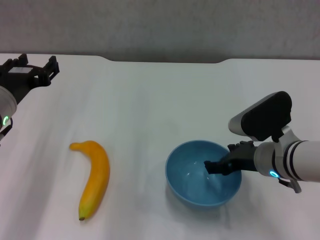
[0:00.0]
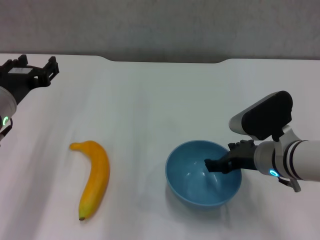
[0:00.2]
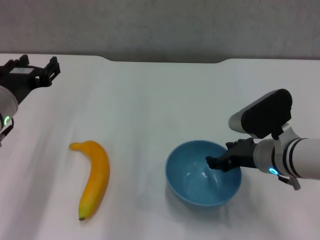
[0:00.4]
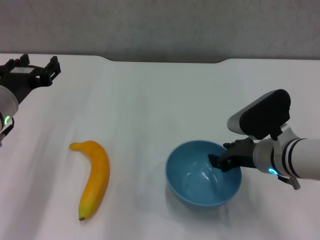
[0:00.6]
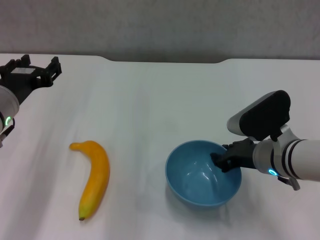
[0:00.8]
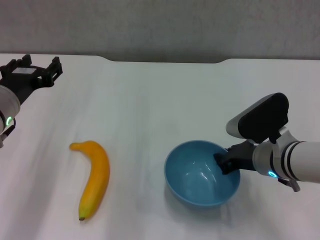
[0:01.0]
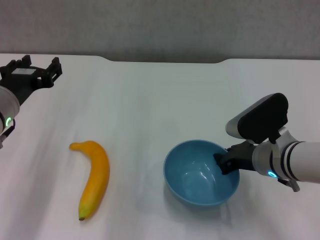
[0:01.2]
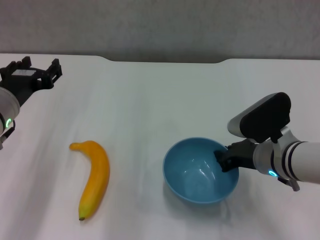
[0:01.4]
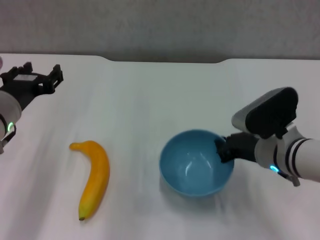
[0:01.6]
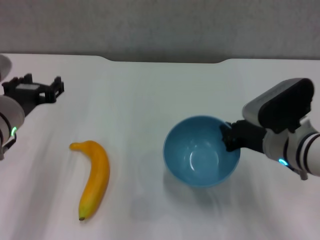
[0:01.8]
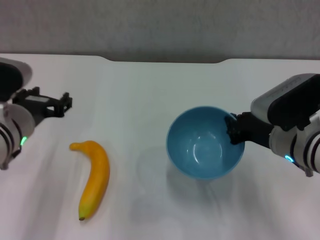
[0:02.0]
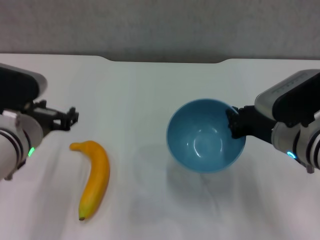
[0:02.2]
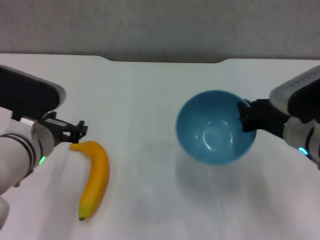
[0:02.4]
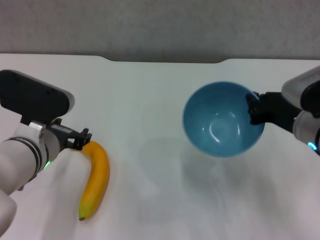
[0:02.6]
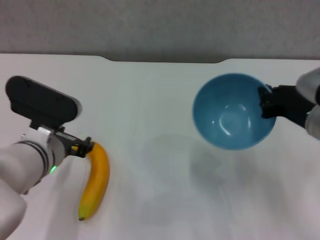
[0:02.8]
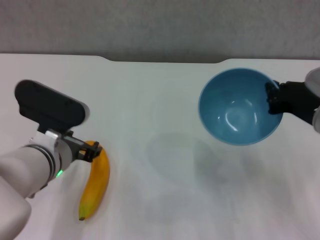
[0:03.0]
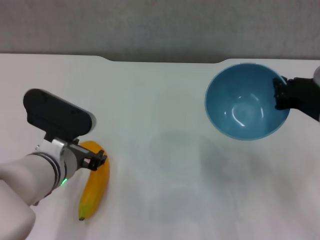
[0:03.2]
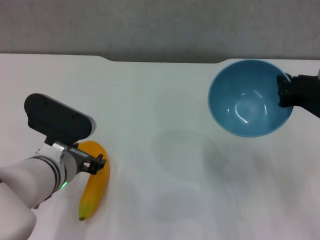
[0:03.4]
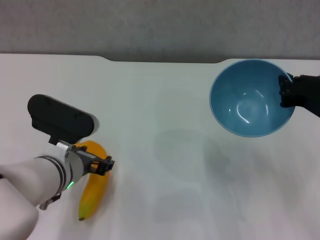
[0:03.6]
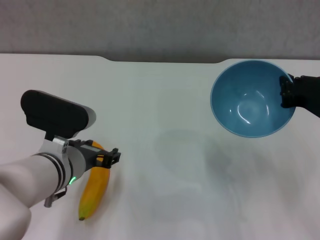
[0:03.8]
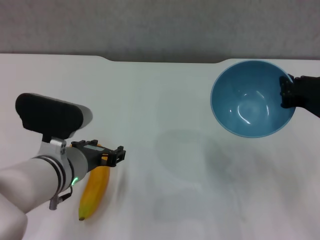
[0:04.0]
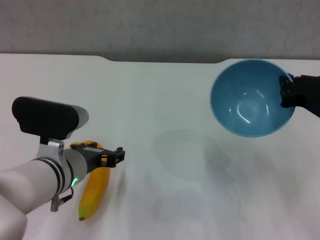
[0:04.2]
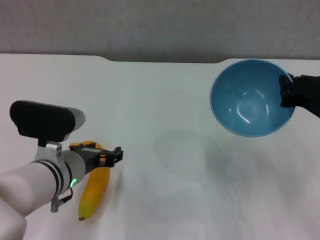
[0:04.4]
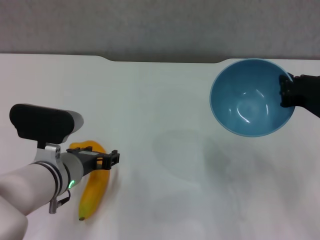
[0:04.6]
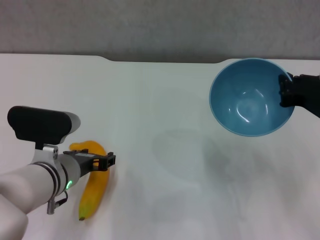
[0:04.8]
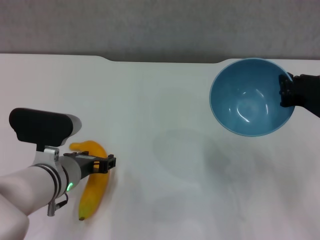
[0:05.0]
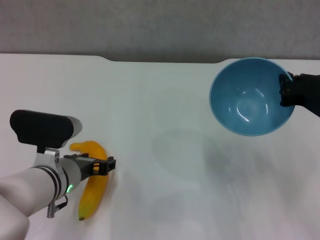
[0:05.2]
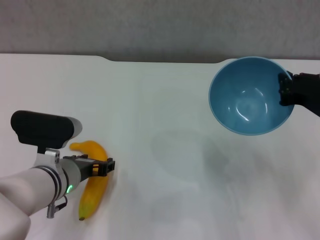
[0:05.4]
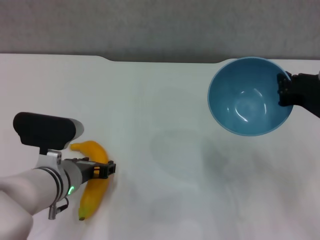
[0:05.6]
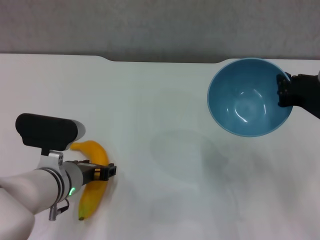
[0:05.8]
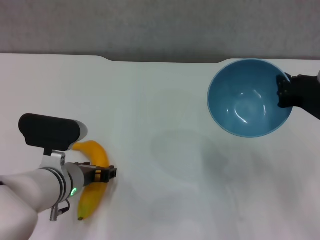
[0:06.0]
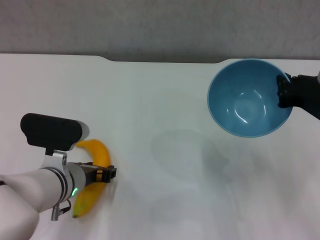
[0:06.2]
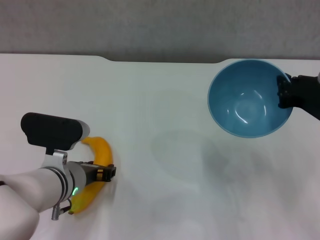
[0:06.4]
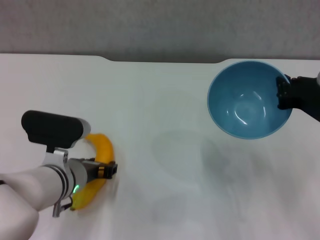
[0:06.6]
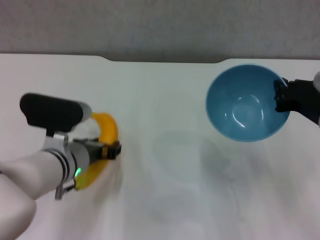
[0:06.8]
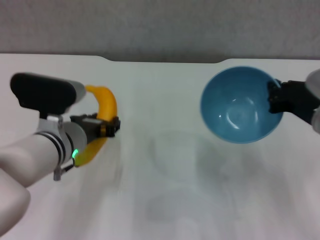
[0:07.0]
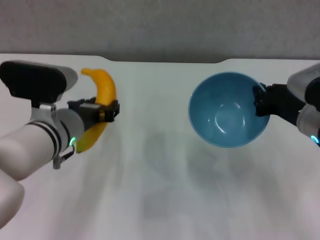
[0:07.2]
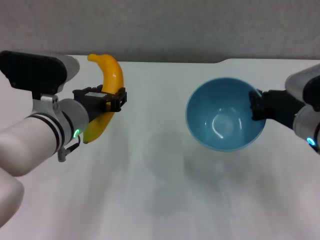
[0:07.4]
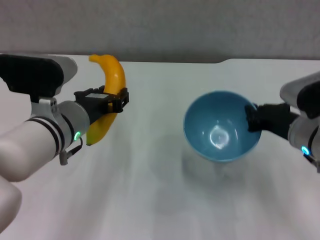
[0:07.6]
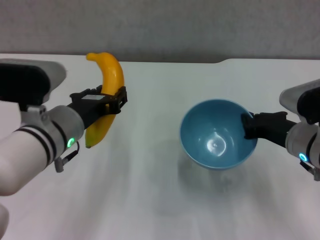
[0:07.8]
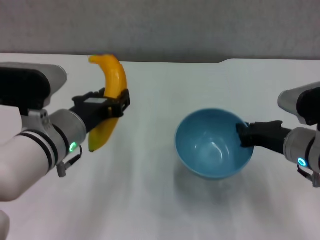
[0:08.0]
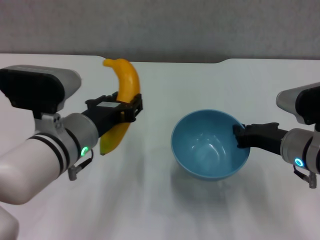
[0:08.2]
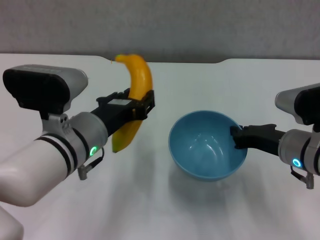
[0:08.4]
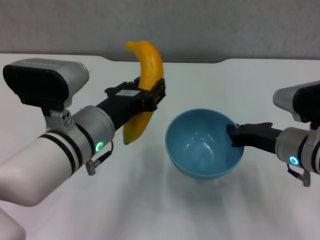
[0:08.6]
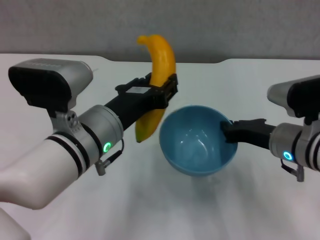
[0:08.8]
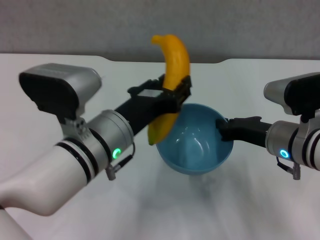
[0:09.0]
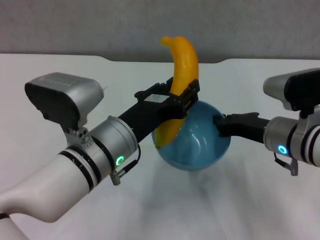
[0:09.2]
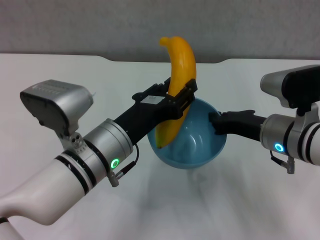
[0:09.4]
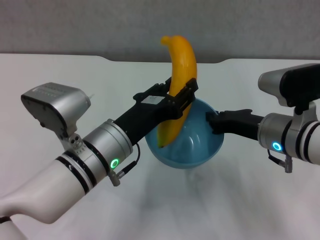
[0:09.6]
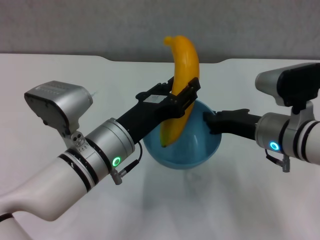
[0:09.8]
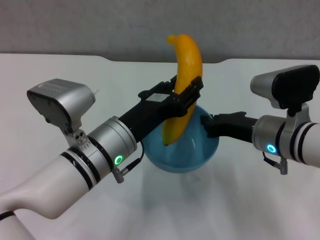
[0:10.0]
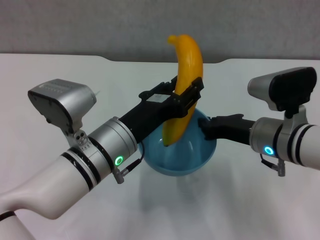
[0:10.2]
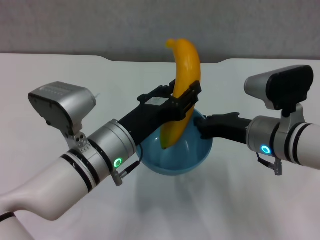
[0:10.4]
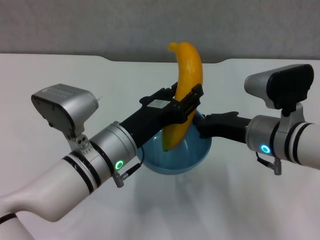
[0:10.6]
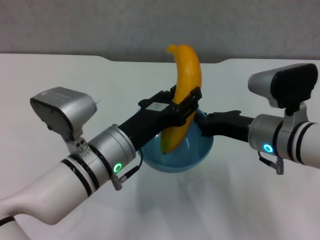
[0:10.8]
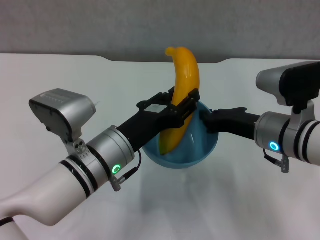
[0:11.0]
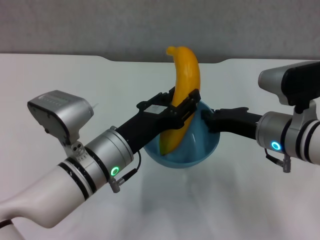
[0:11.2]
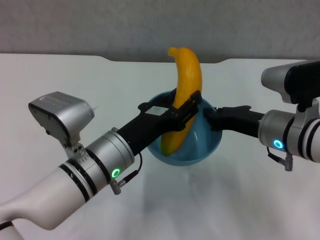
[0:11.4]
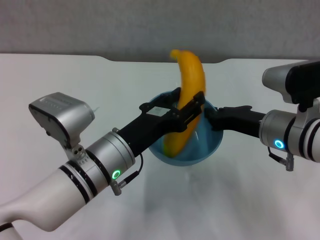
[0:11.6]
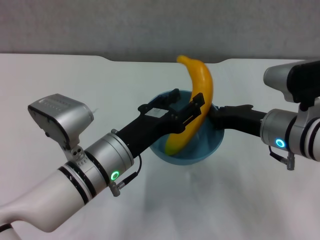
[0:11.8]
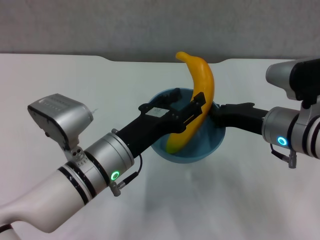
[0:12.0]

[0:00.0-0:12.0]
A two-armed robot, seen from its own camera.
Step, 0:01.4 to 0:02.0: Lift the blue bowl with right gripper.
Step, 0:02.2 to 0:06.2: Grasp the banana with left gripper.
0:00.0 to 0:01.6: The right gripper closes its fingers.
0:01.6 to 0:03.0: The left gripper goes about 5 cm to the right; the right gripper shifts approximately 10 cm upward and to the right.
0:03.0 to 0:06.0: The grippers stay close to where they were, moving slightly.
0:06.0 to 0:07.6: The left gripper moves upward, approximately 10 cm, and closes up, while the right gripper moves roughly 5 cm.
0:07.6 to 0:09.0: The left gripper travels to the right by approximately 5 cm.

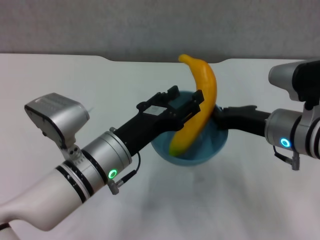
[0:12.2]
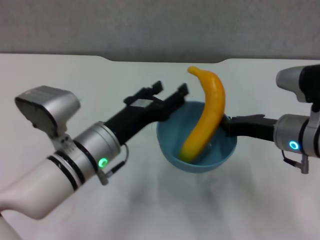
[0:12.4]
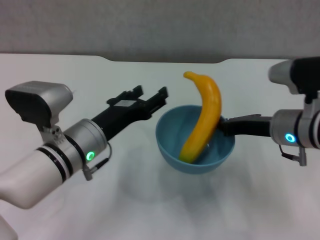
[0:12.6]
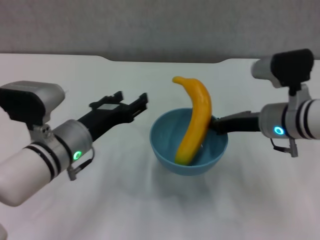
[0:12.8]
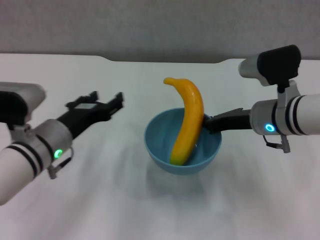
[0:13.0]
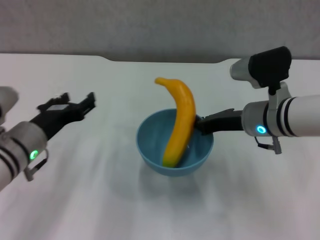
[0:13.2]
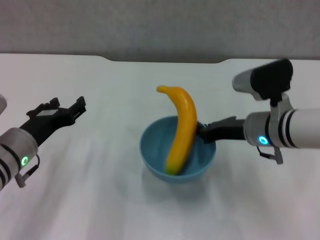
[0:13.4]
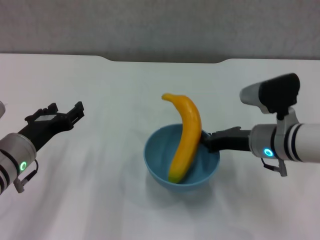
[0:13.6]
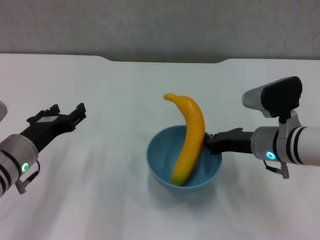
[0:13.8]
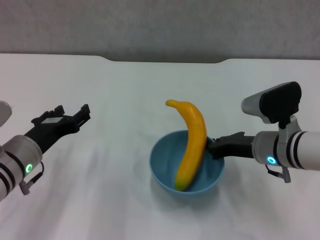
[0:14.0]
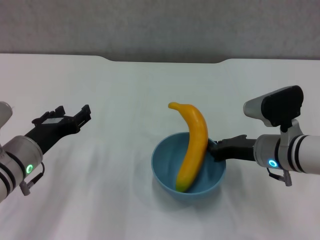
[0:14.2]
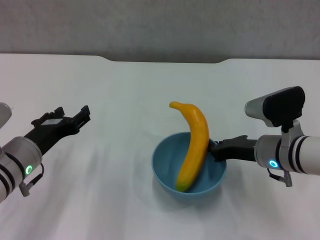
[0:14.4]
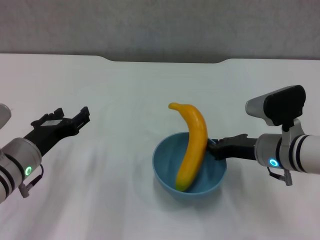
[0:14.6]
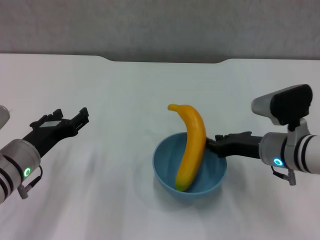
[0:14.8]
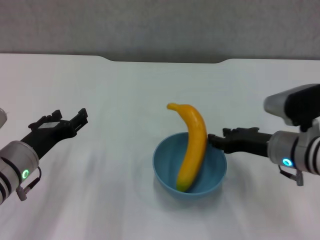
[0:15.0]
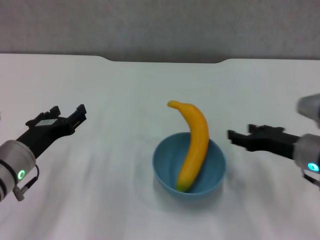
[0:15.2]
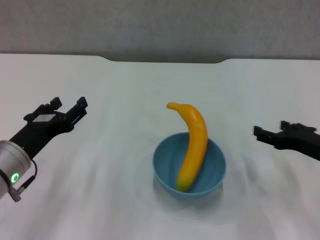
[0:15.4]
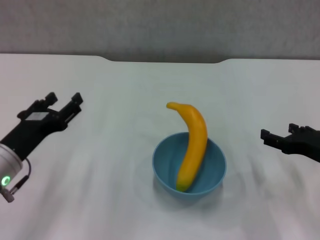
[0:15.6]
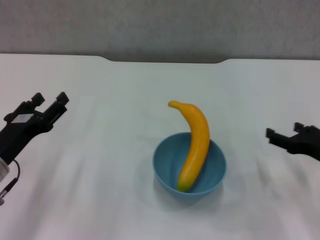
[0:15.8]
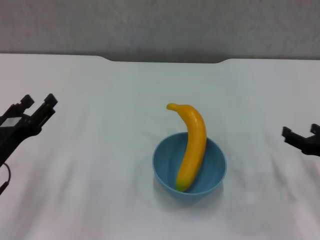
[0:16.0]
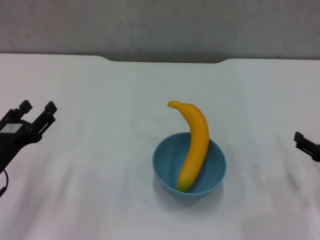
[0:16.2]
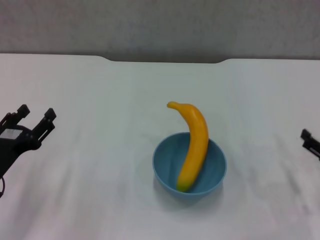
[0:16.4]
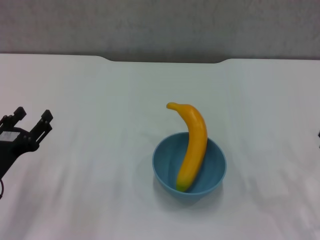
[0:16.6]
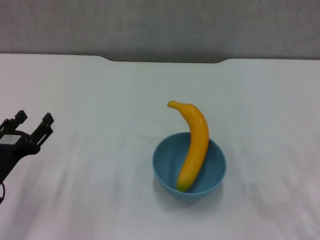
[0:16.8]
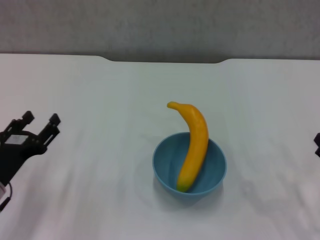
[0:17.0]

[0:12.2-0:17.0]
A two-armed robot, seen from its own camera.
Step, 0:12.4 to 0:15.0: Place the bowl on the table with right gripper.
0:12.2 to 0:13.8: The right gripper moves some 5 cm. The left gripper shifts approximately 15 cm to the left.
0:13.8 to 0:15.4: The right gripper goes about 10 cm to the right and backward, and opens.
0:15.4 to 0:17.0: The left gripper shifts by about 5 cm. Meanwhile the right gripper travels backward, to the right and downward by approximately 10 cm.

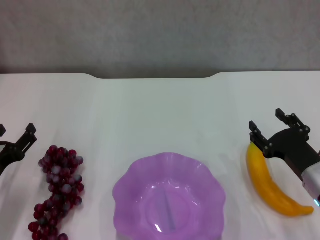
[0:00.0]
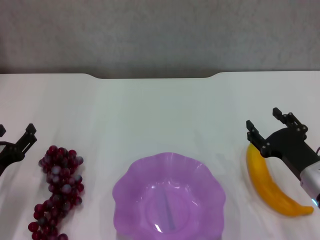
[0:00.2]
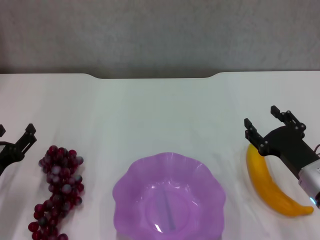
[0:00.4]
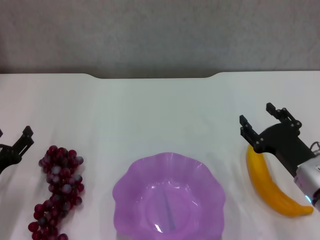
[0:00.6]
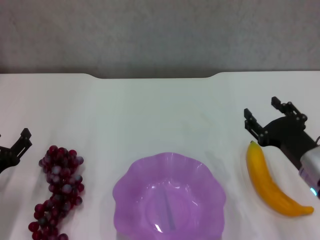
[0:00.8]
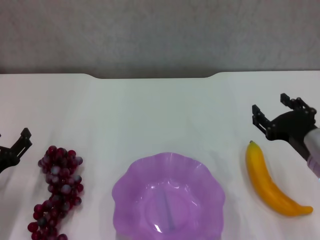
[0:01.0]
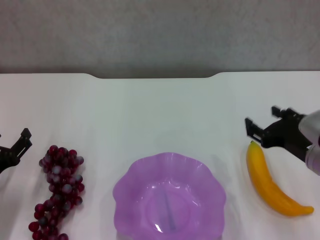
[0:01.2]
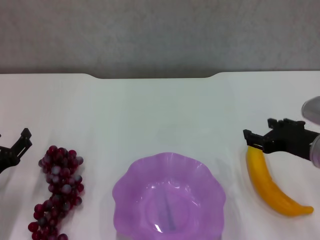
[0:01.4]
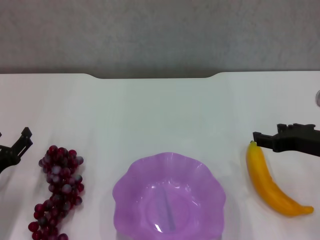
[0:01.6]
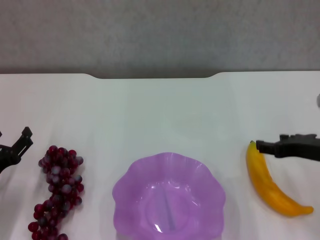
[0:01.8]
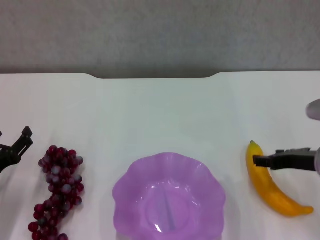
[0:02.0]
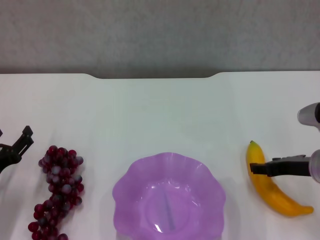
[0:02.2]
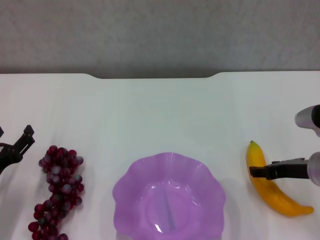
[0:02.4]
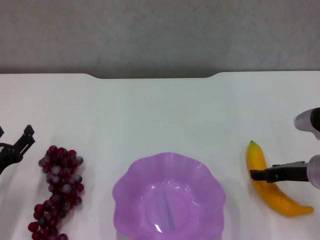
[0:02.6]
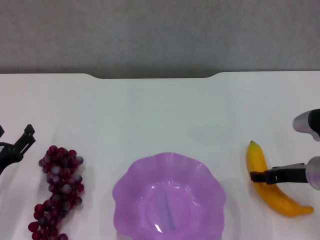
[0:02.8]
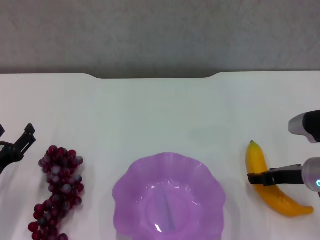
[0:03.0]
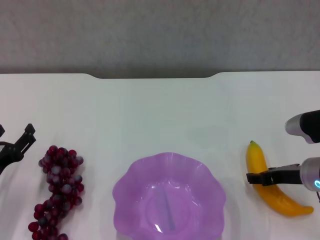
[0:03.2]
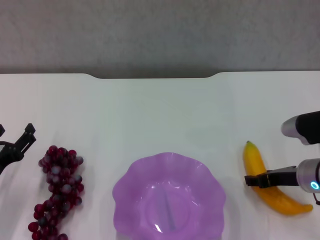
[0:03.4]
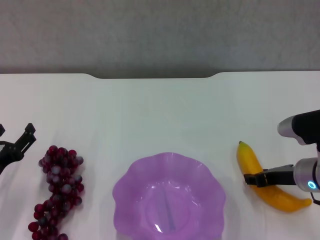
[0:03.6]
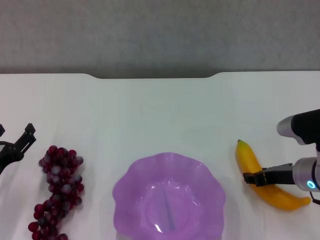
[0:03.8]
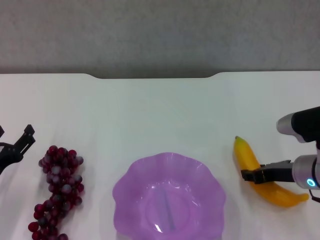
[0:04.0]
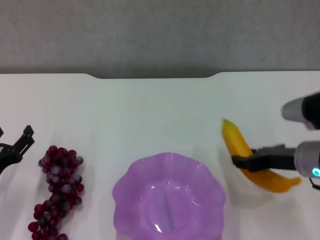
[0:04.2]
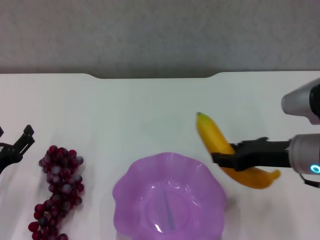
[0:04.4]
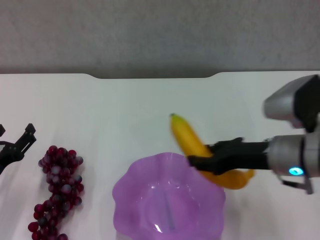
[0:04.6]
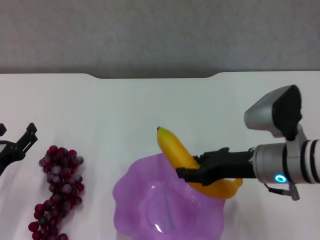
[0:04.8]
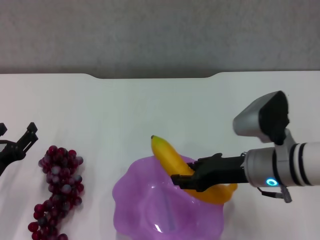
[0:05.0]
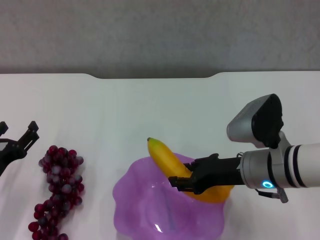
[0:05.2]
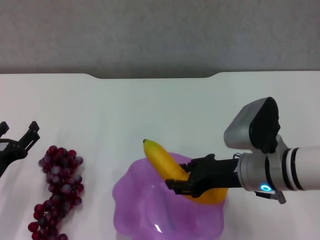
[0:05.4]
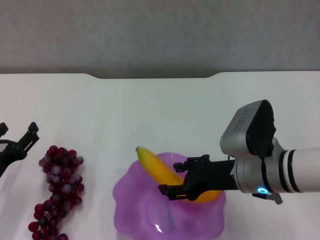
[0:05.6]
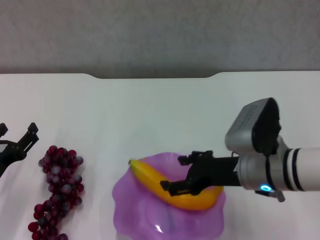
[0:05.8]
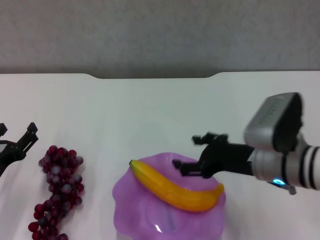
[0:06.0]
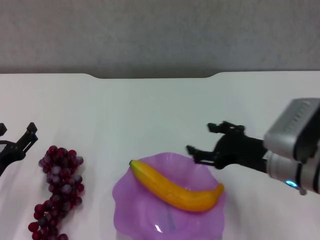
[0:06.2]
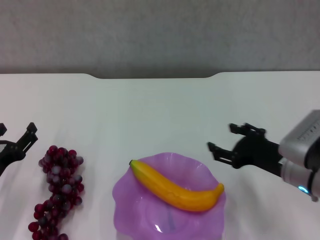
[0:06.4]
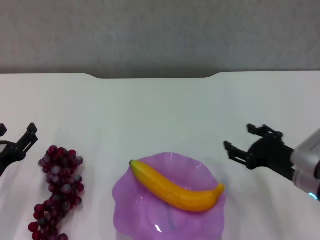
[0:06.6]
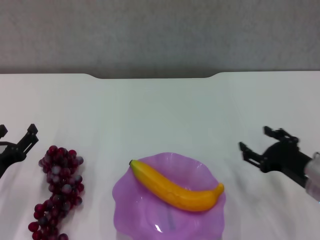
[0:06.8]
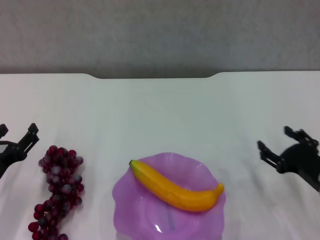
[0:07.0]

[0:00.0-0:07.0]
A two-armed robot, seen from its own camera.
Step, 0:00.0 to 0:03.6: Grasp the banana with right gripper.
Step, 0:03.8 to 0:06.0: Place the banana in the purple plate with right gripper.
0:00.0 to 0:01.4: The right gripper goes approximately 10 cm upward.
0:01.4 to 0:02.8: The right gripper goes approximately 5 cm downward.
0:02.8 to 0:04.2: The right gripper moves roughly 5 cm, and closes.
0:04.2 to 0:05.6: The right gripper travels to the left by some 10 cm.
0:05.6 to 0:07.0: The right gripper is displaced to the right and downward by some 15 cm, and opens.
